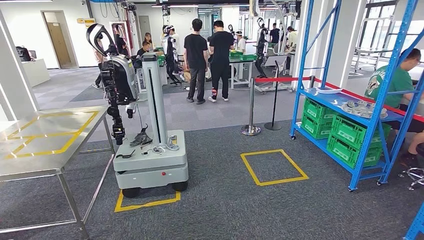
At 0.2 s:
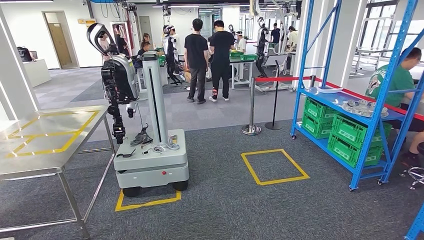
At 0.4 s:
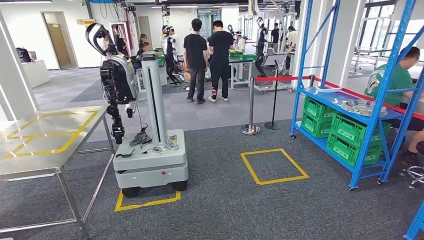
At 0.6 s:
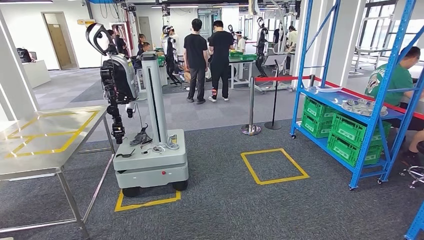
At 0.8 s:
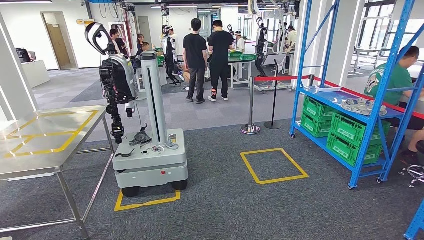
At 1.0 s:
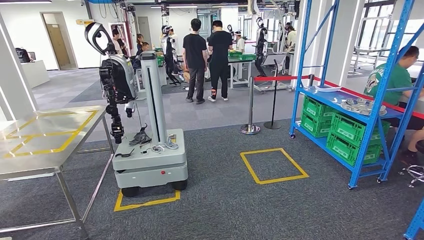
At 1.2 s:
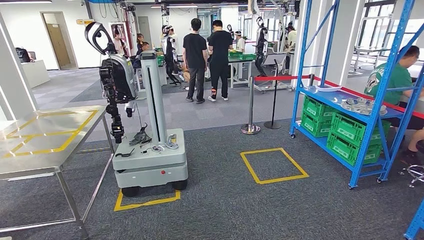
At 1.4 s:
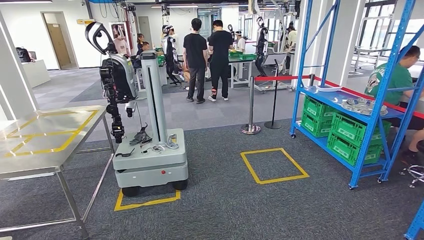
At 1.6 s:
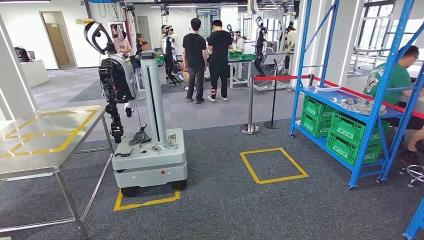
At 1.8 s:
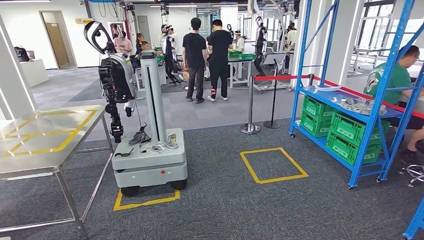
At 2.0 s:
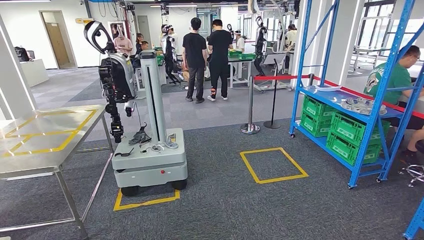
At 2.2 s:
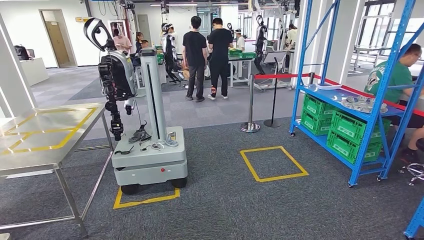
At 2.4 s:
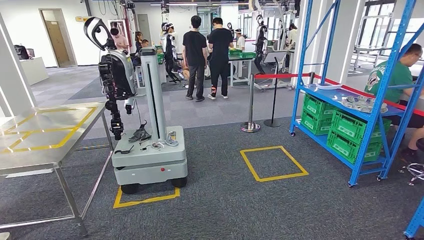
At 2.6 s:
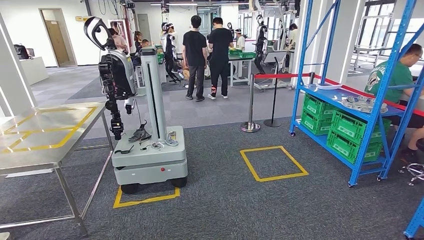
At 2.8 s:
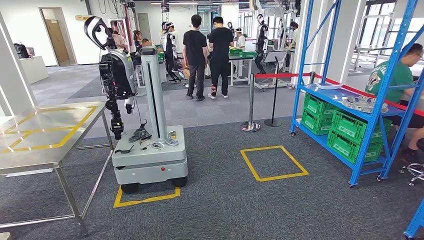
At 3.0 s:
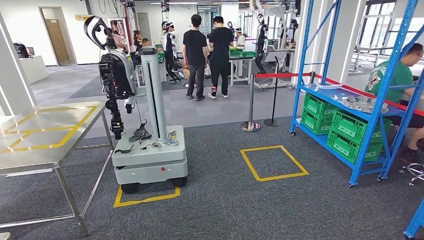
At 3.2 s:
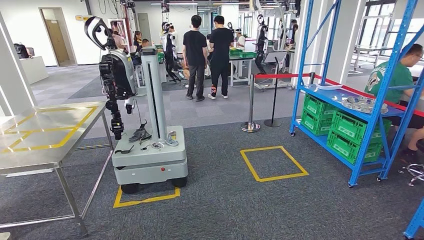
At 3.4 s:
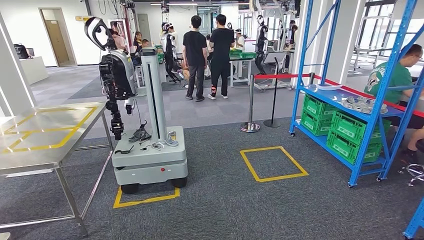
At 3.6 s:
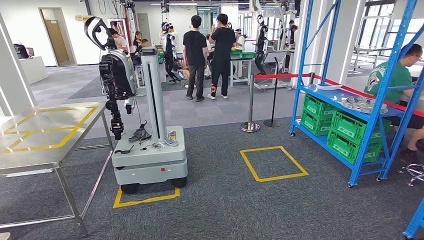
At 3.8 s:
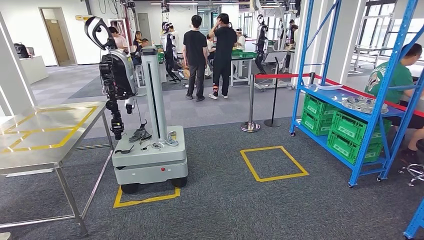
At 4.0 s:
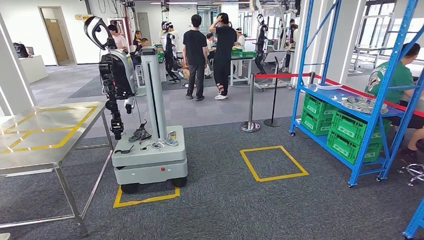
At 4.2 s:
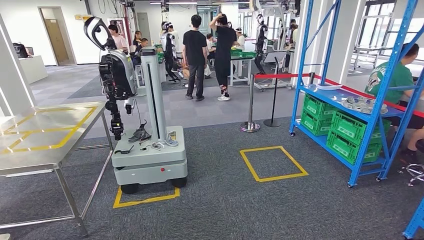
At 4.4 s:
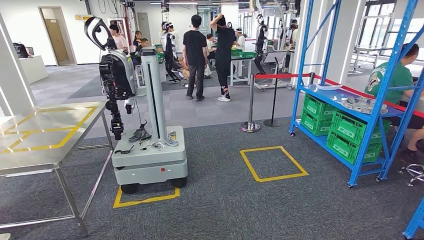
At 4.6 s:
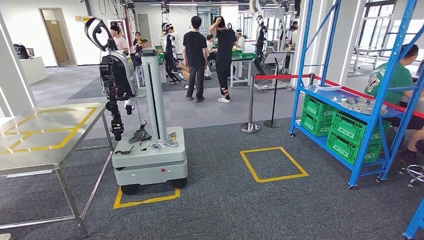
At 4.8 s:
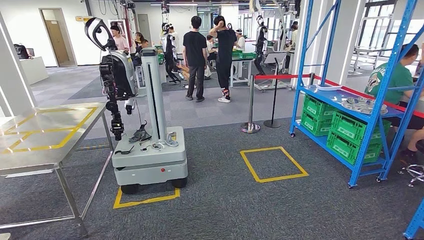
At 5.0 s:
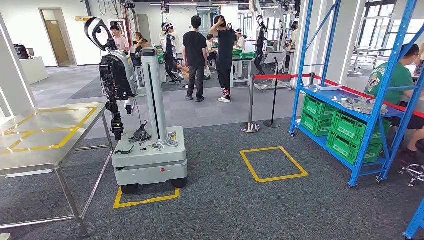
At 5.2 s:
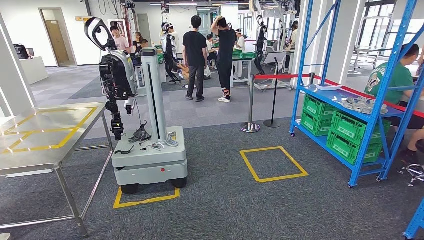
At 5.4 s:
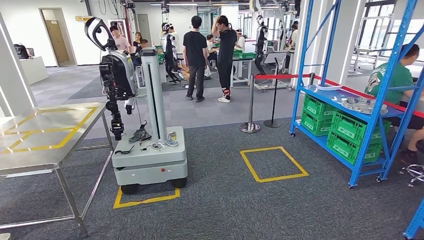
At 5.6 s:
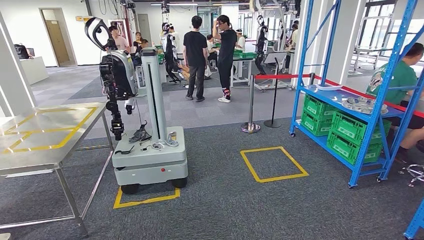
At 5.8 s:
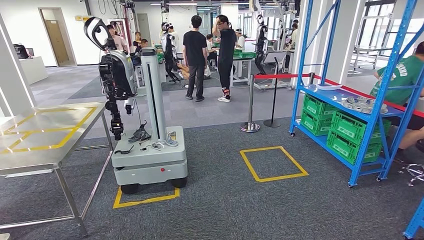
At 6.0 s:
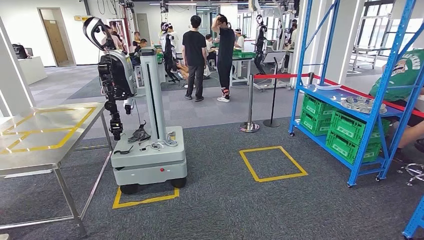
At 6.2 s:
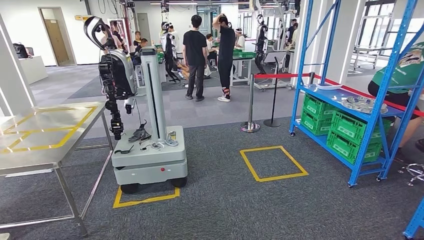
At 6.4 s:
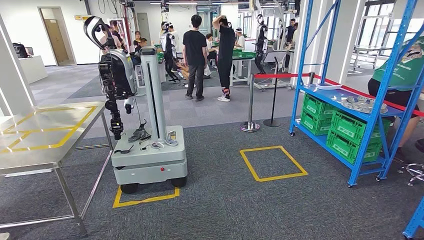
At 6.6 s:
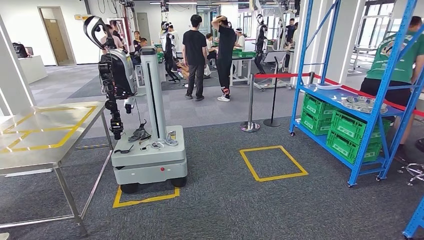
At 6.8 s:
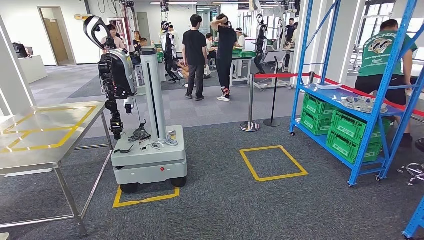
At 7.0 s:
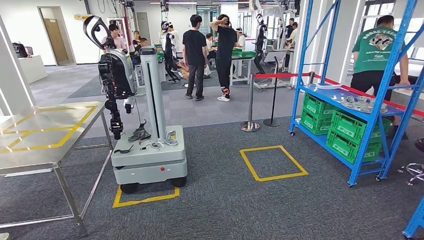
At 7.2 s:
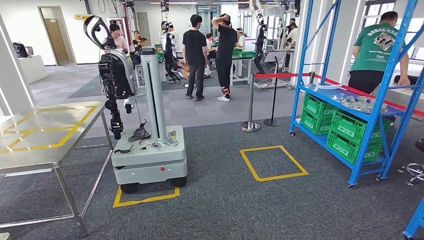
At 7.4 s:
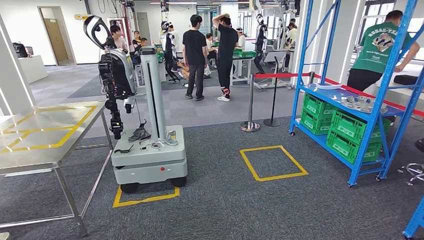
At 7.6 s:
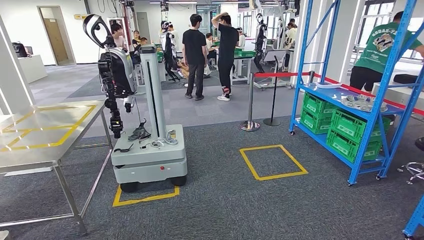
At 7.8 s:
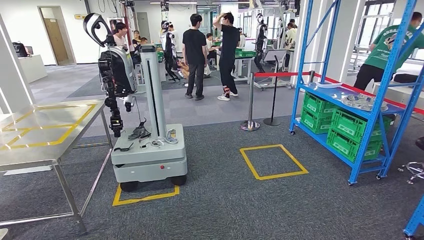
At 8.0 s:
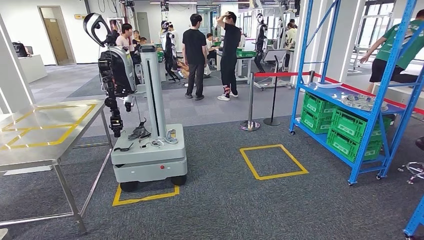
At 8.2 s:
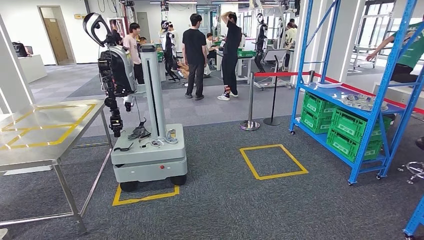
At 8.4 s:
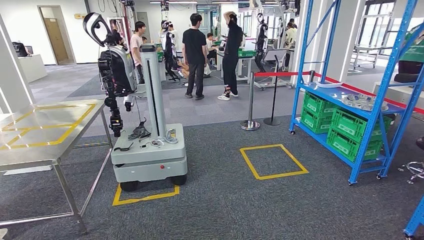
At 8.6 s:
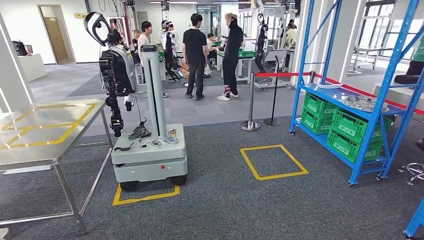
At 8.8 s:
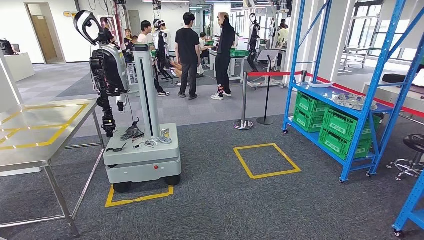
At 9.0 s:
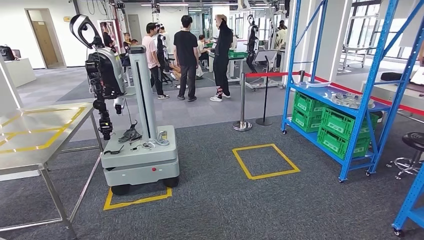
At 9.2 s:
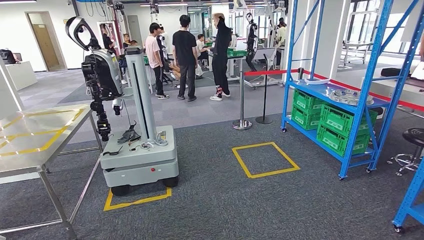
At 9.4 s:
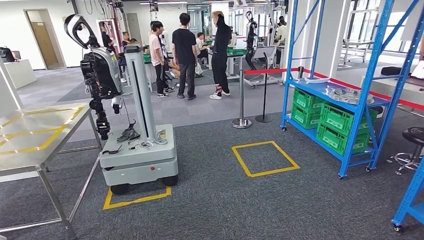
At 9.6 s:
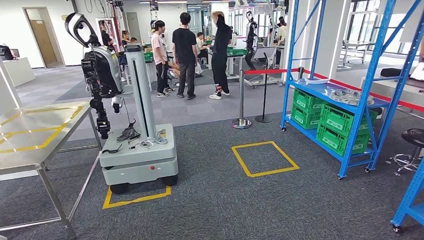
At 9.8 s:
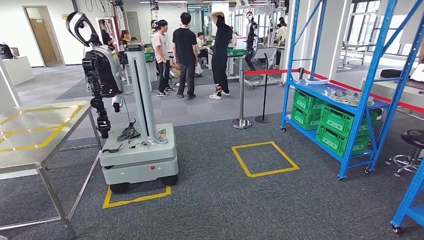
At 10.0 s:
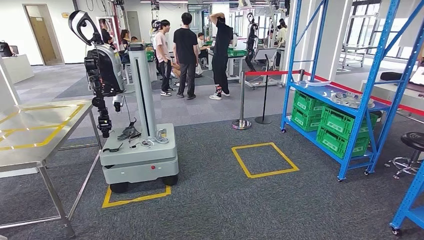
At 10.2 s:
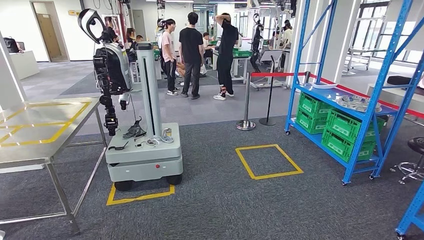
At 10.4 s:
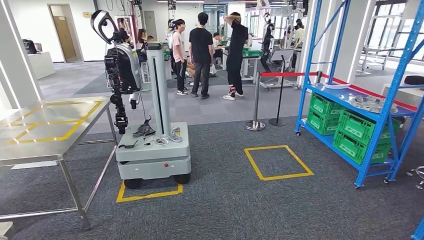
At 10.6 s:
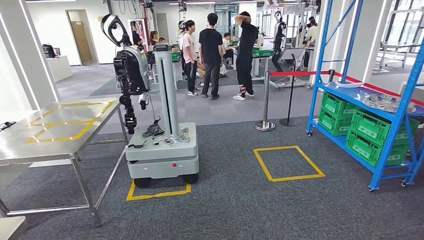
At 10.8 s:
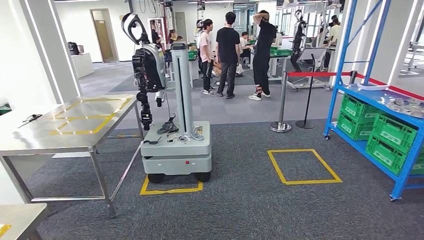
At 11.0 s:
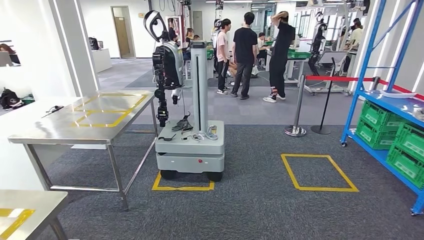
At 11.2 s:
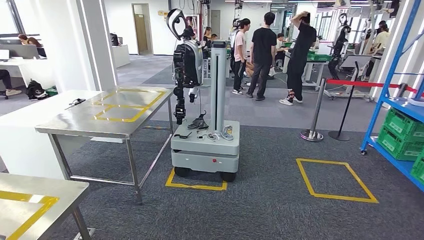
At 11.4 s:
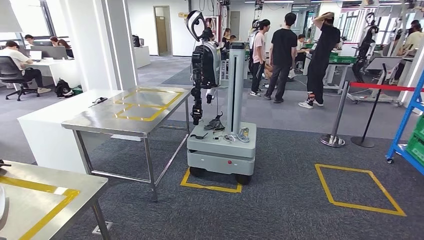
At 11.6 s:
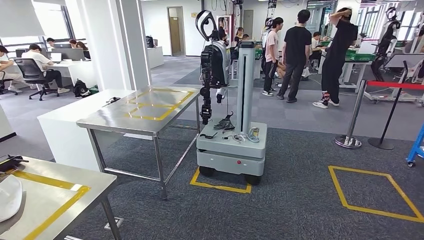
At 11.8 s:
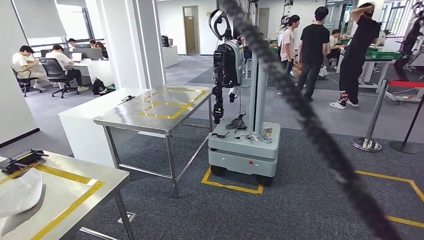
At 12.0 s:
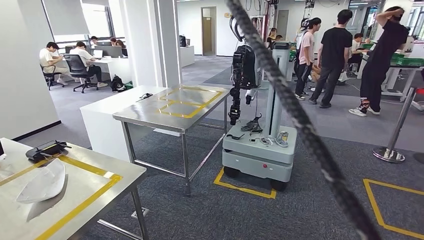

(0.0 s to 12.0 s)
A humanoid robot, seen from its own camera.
3.0 s - 4.4 s: There are only small adjustments of the hands.
4.4 s - 6.0 s: The left hand heads forward, covering some 5 cm.
6.0 s - 7.6 s: Neither hand changes place.

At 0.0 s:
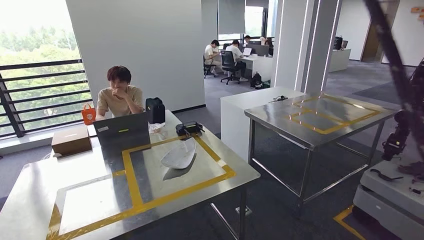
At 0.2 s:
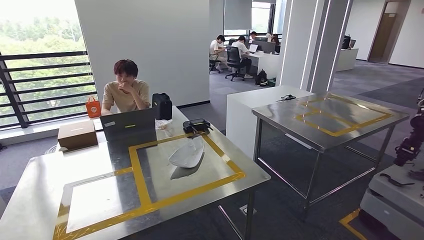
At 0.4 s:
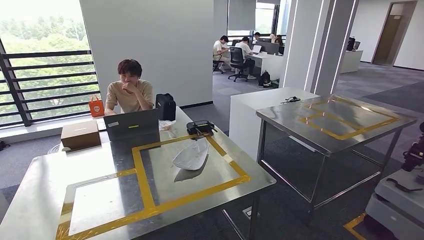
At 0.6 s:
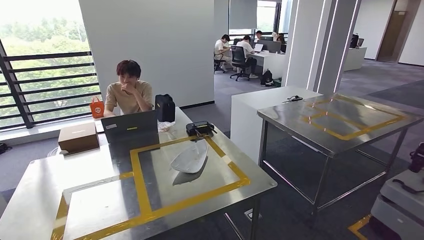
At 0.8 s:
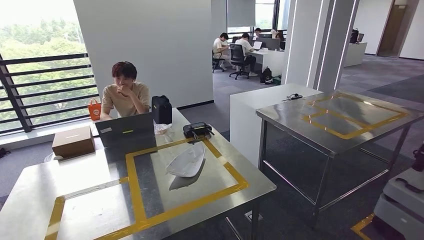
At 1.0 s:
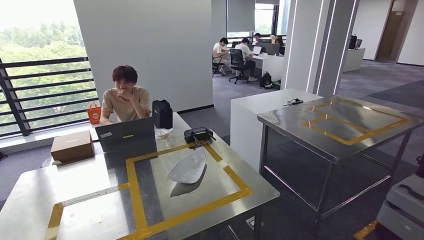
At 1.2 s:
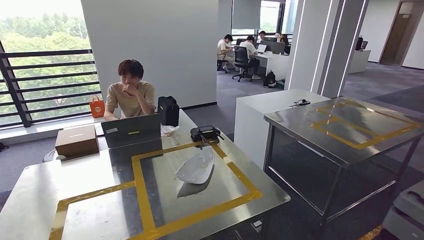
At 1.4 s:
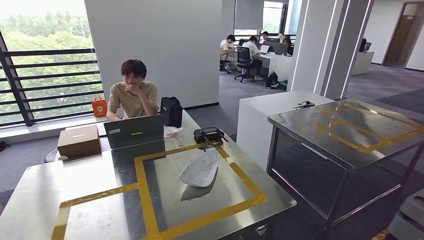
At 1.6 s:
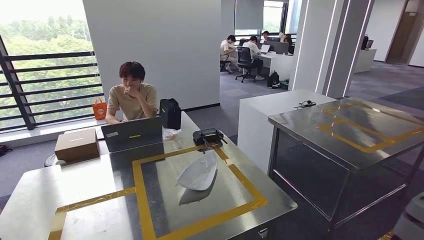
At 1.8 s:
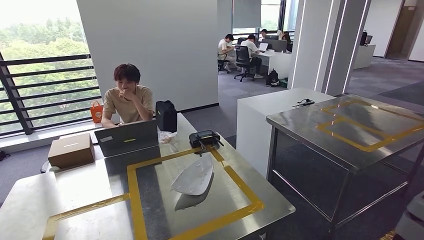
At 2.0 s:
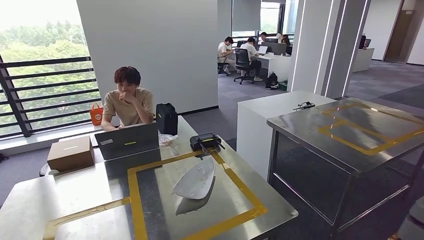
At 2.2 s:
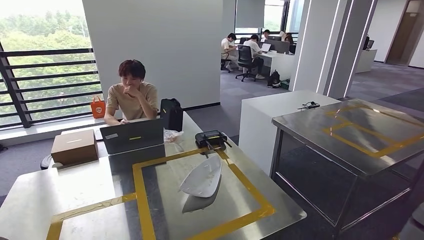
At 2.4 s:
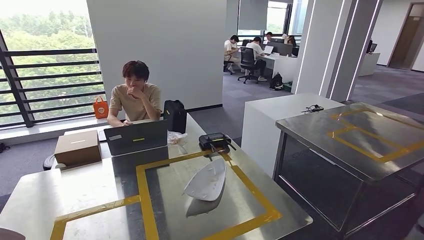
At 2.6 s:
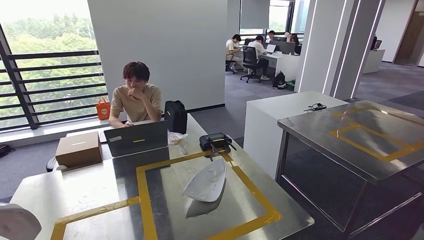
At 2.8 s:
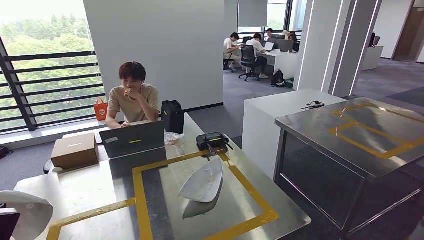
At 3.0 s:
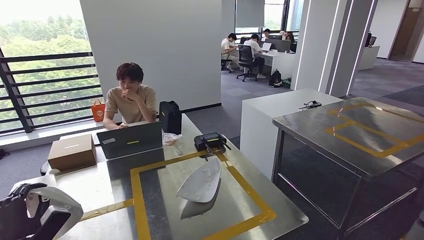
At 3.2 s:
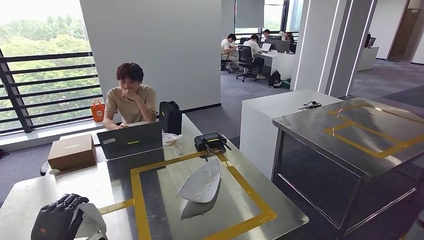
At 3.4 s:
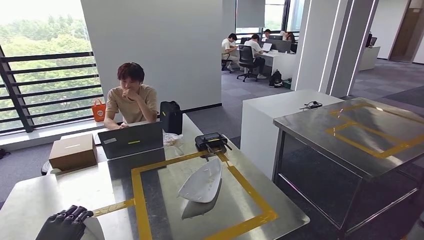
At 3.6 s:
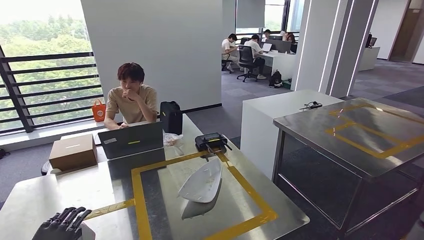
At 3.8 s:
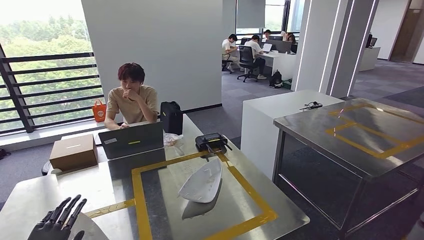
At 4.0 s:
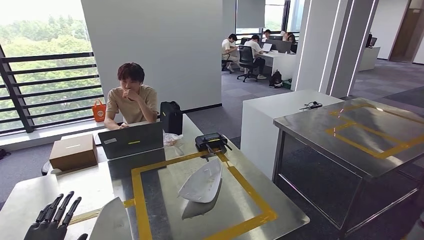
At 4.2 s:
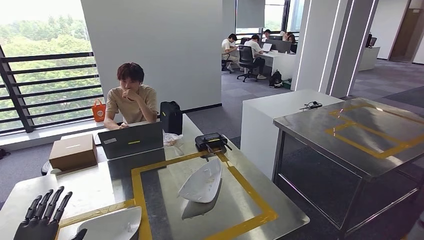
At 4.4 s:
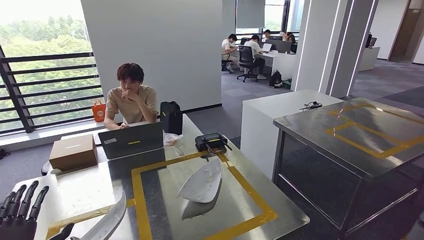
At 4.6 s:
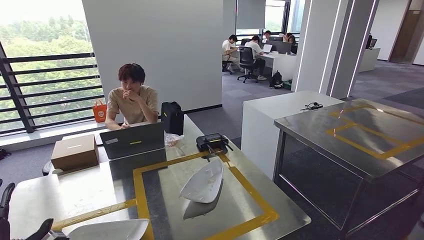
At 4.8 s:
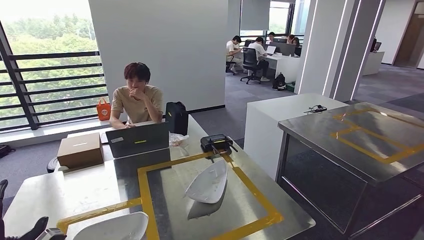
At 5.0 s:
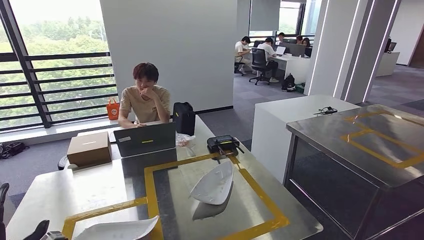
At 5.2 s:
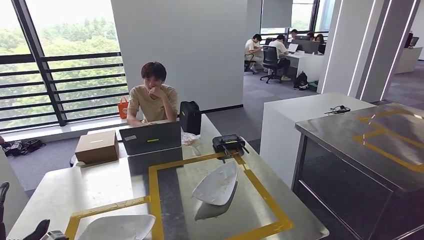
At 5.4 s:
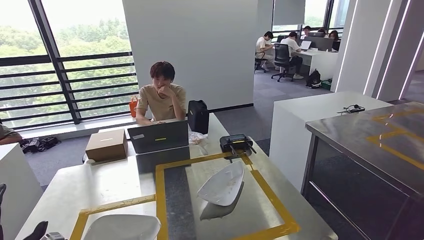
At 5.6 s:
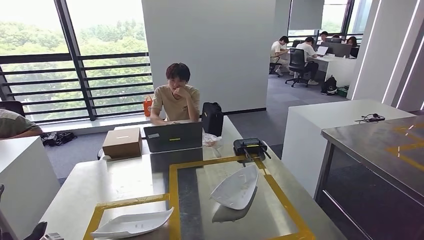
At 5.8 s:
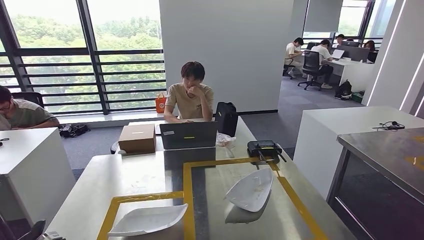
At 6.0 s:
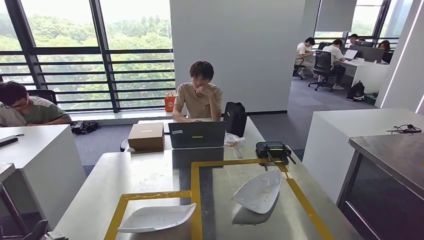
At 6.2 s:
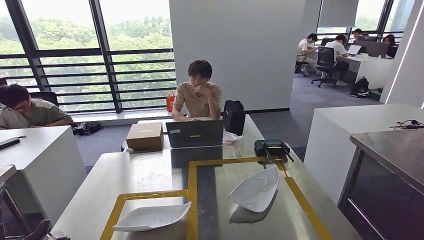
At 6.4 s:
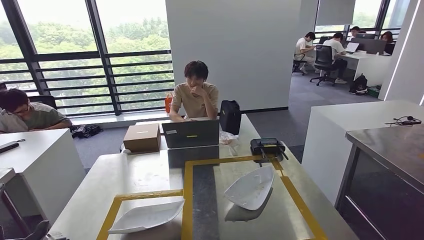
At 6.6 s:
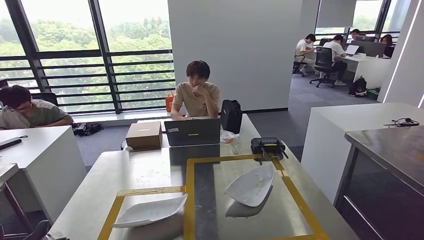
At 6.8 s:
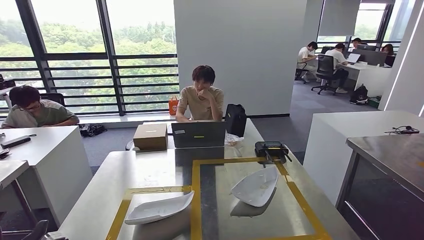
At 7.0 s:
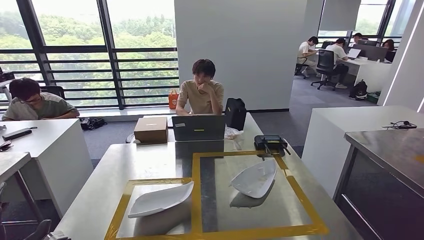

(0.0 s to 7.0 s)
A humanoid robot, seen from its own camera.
Step, 0.0 s - 2.0 s: Move the small parts to the workbench.
